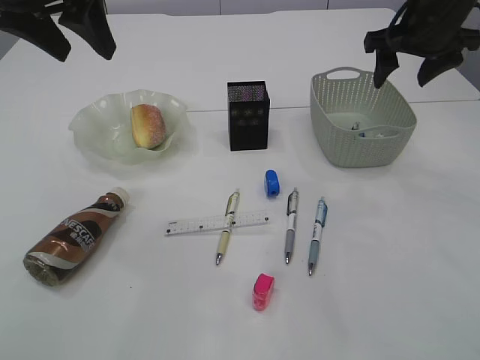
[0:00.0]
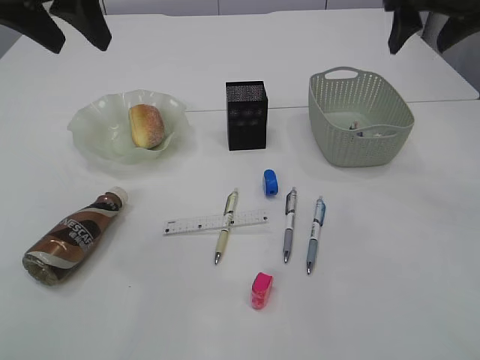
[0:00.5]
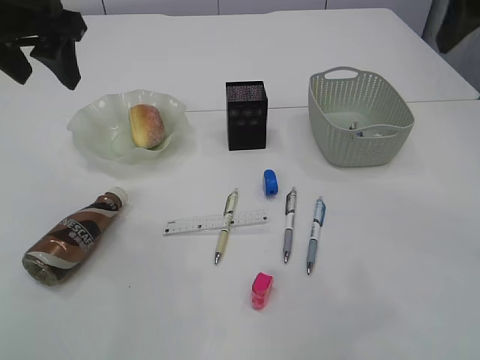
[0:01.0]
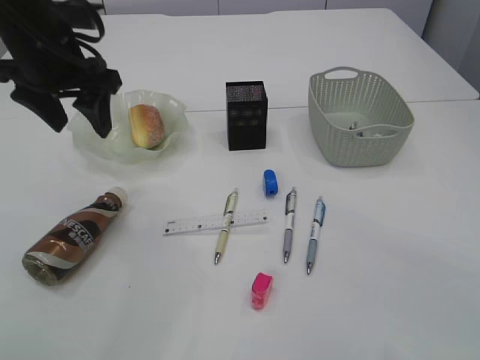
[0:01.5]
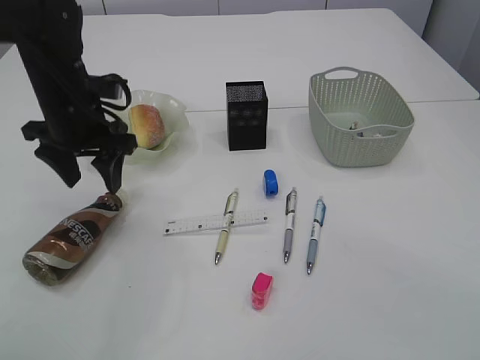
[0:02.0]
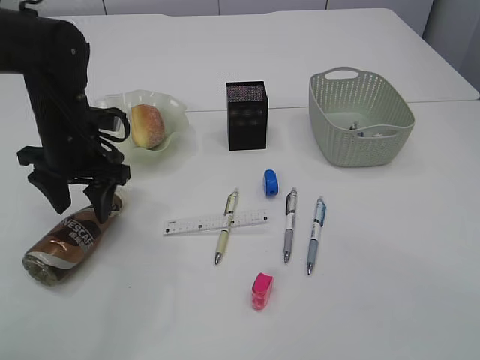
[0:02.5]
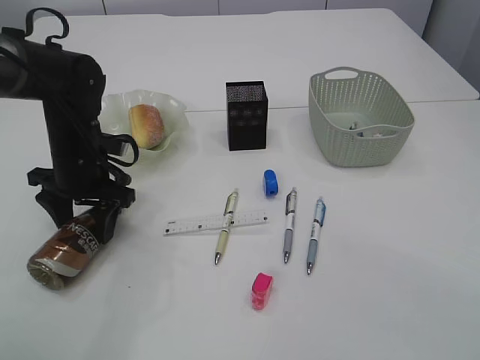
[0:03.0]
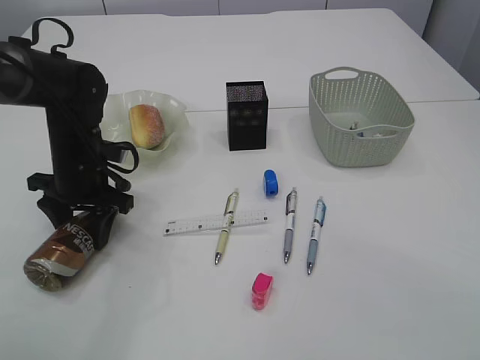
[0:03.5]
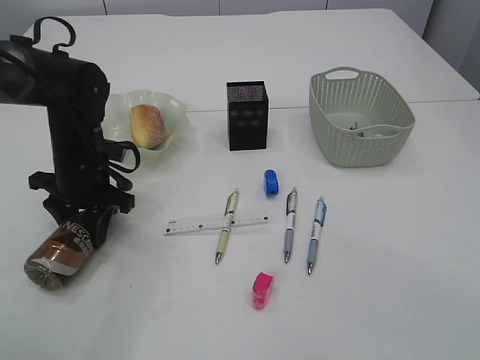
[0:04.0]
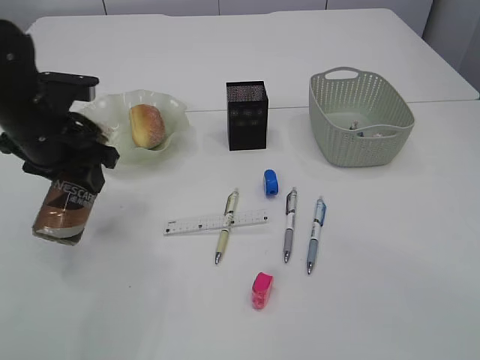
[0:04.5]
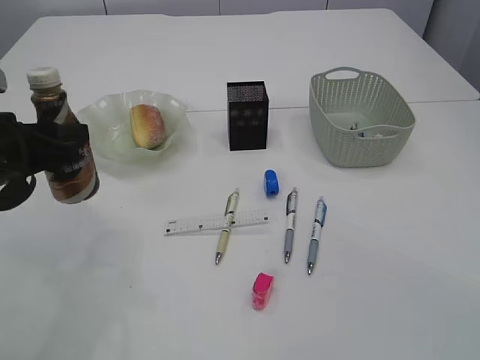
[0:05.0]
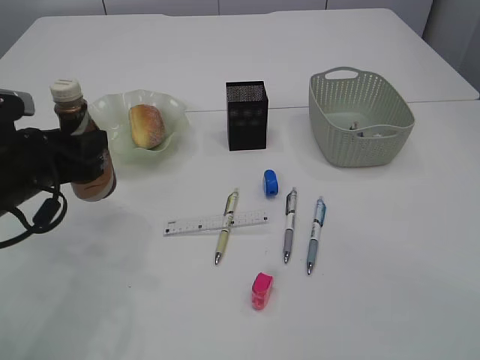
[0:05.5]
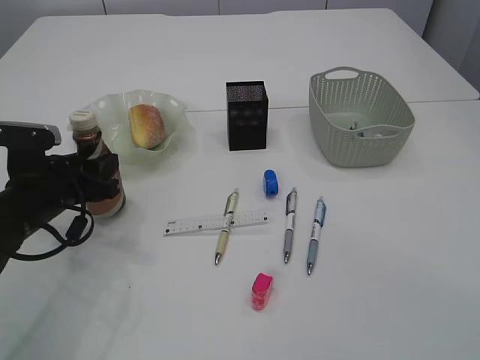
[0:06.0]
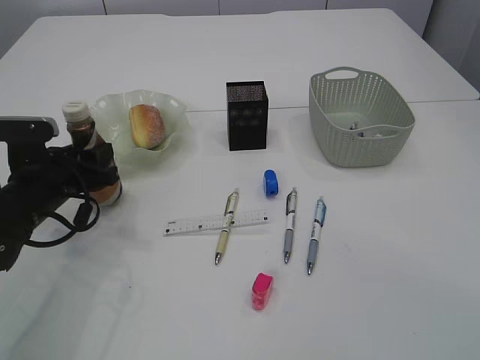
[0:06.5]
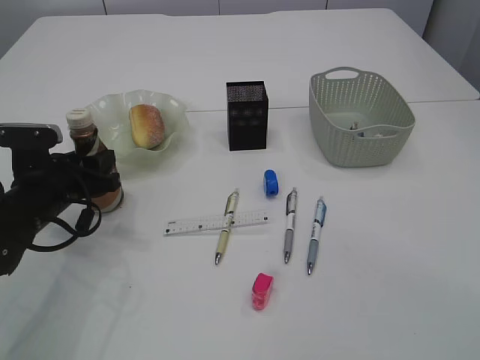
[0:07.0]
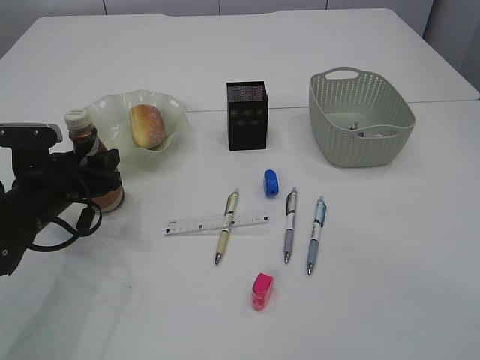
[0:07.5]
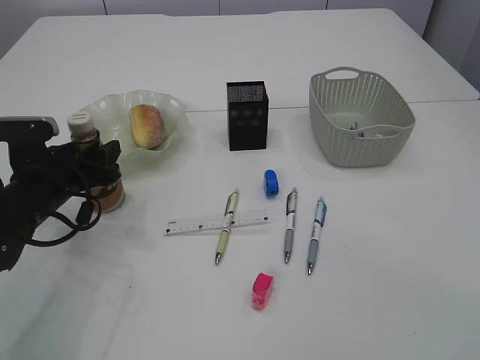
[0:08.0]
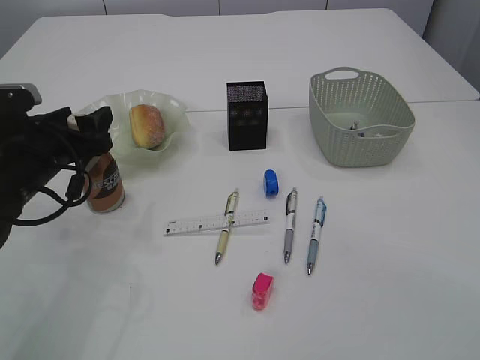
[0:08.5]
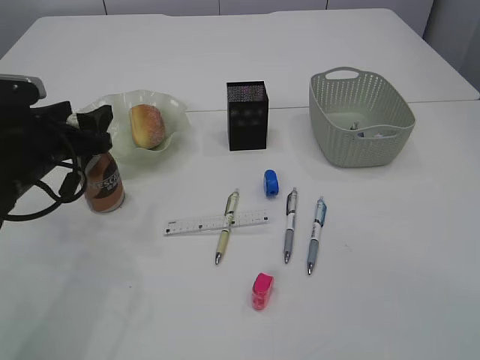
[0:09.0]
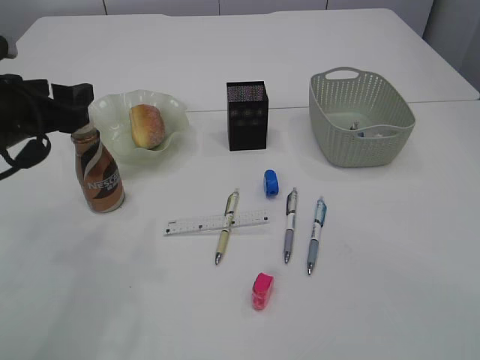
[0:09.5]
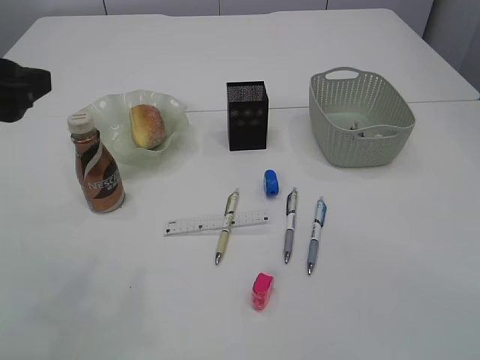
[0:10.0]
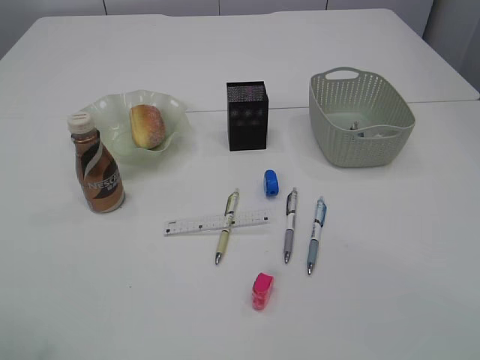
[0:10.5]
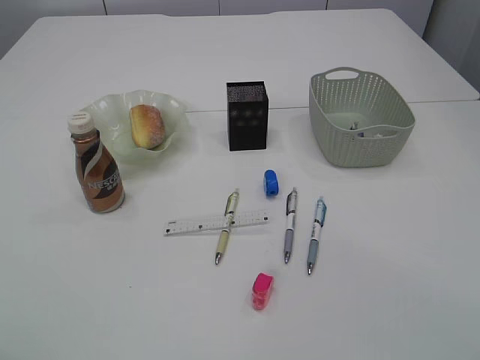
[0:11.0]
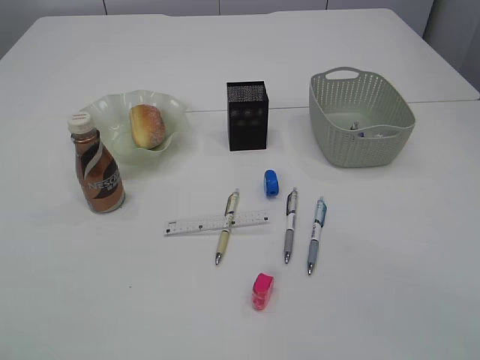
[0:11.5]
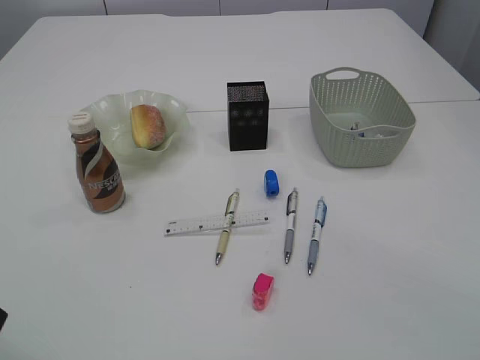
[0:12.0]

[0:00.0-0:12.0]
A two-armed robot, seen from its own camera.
Step, 0:00.0 to 0:04.0: Pick up the bottle with the left arm.
Step, 0:04.5 to 0:09.5: Place the bottle.
0:00.0 to 0:02.0: The right gripper moves backward and upward, some 30 cm. The left gripper heads downward, covering roughly 15 cm.
0:02.0 to 0:04.0: The left gripper moves downward, some 10 cm, and closes.
0:04.0 to 0:06.0: The left gripper goes some 5 cm backward.
0:06.0 to 0:08.0: The left gripper opens its fingers.
0:08.0 to 0:10.0: The left gripper heads upward and backward, covering approximately 20 cm.
0:10.0 to 0:12.0: The left gripper travels backward by some 15 cm.

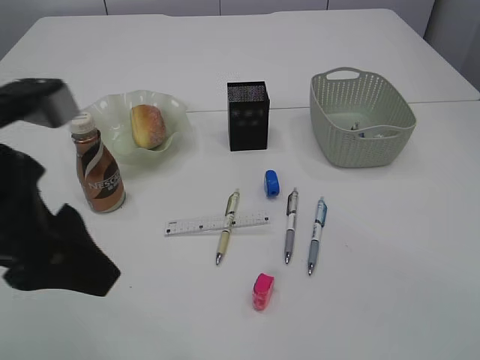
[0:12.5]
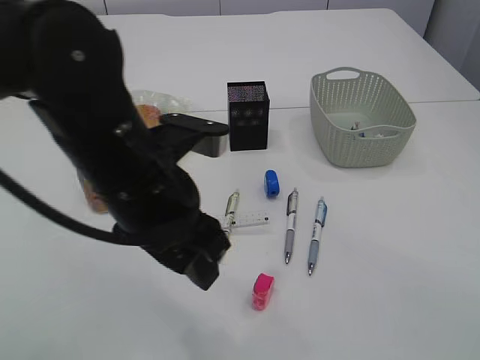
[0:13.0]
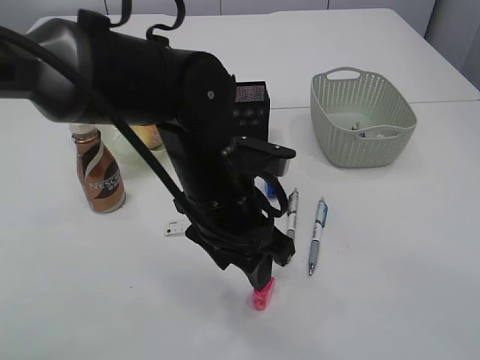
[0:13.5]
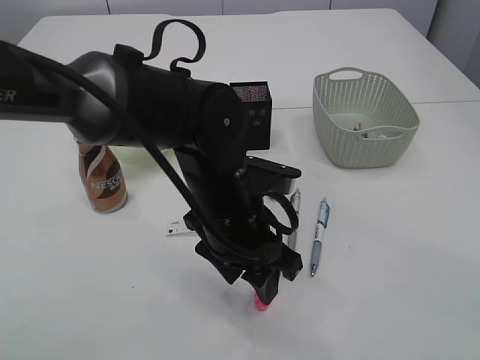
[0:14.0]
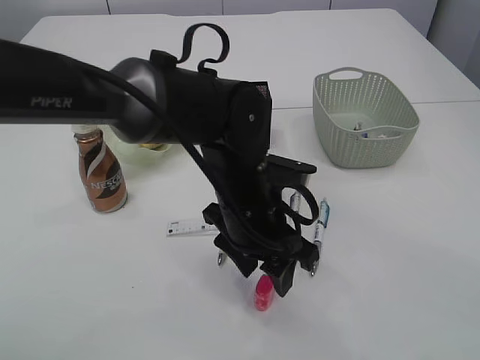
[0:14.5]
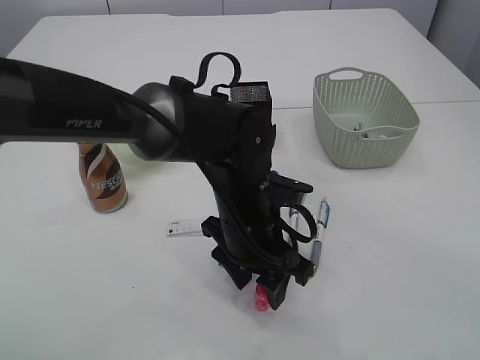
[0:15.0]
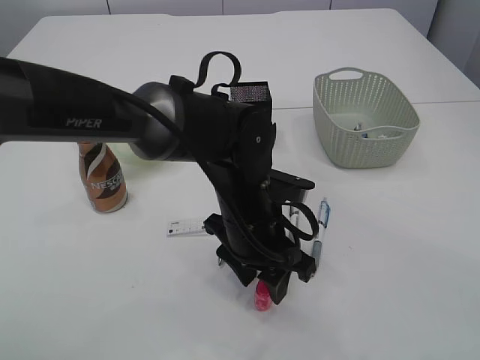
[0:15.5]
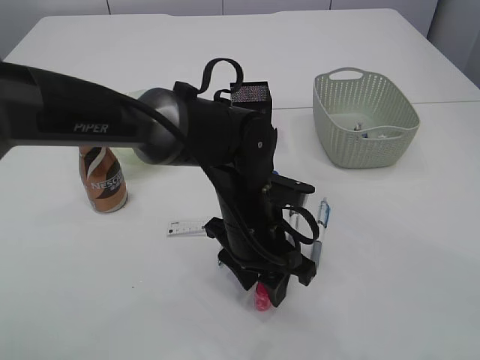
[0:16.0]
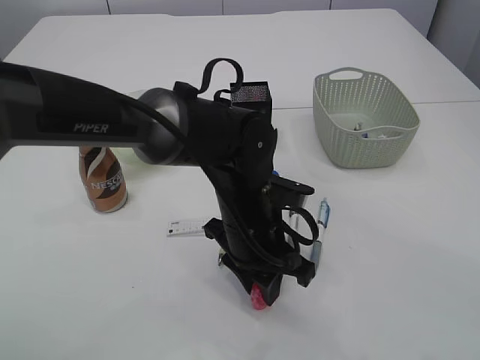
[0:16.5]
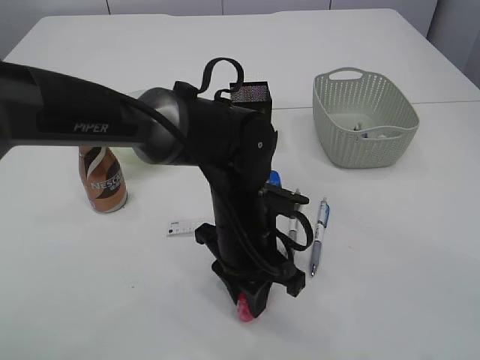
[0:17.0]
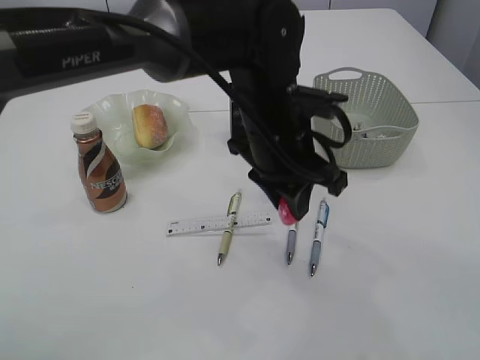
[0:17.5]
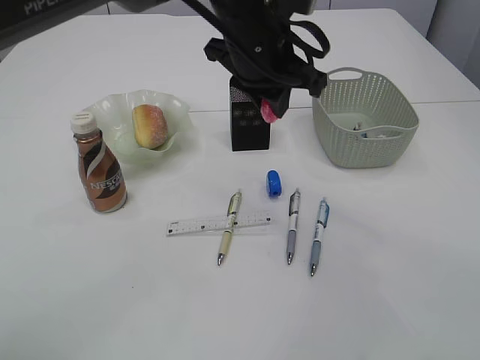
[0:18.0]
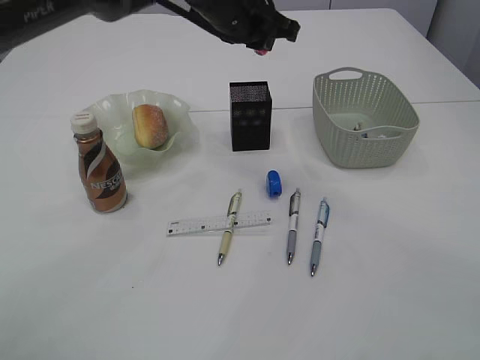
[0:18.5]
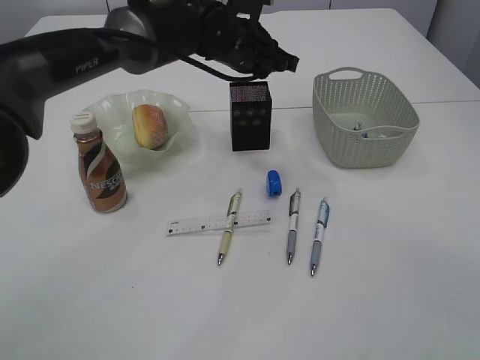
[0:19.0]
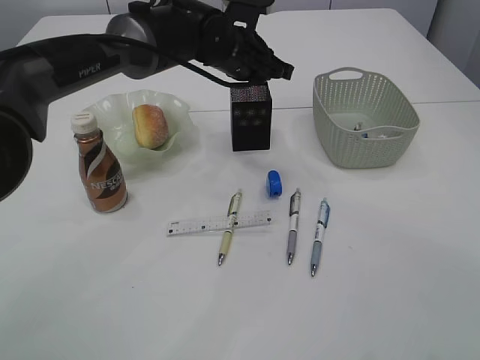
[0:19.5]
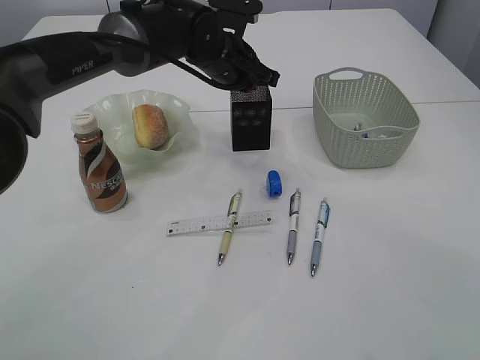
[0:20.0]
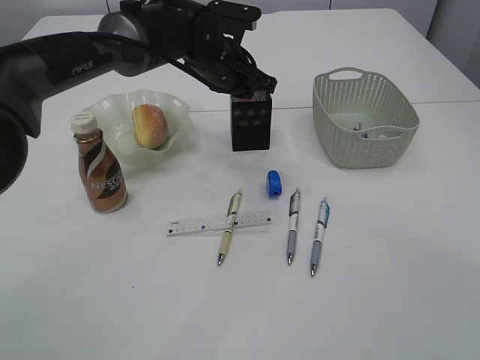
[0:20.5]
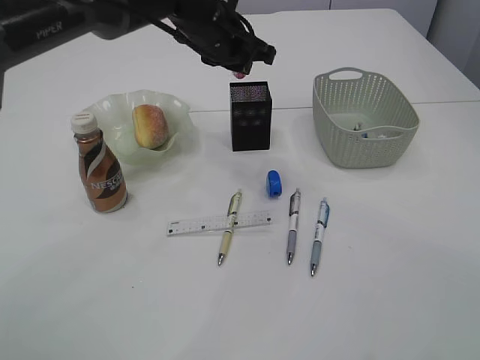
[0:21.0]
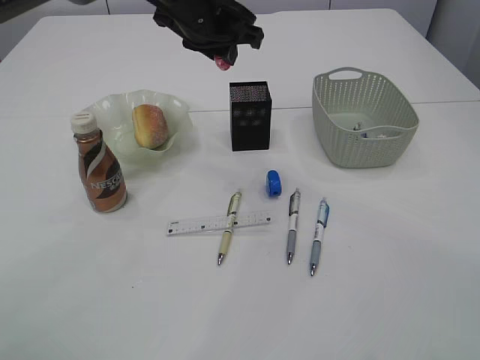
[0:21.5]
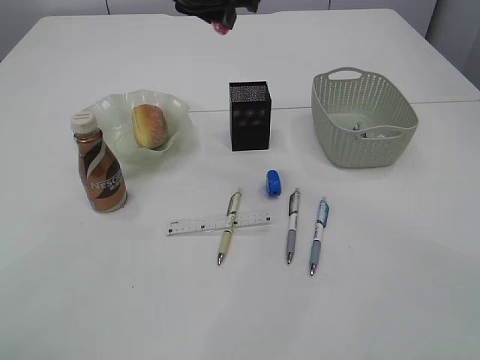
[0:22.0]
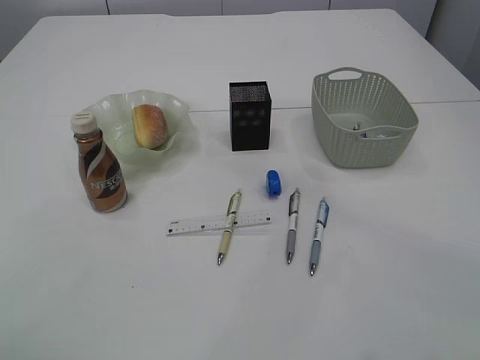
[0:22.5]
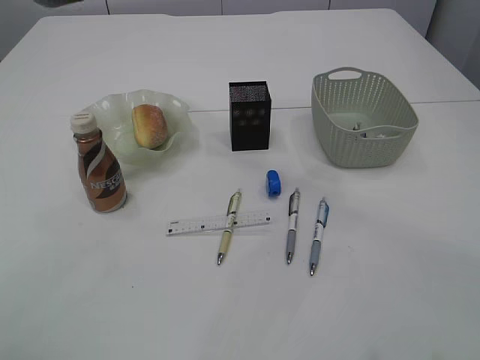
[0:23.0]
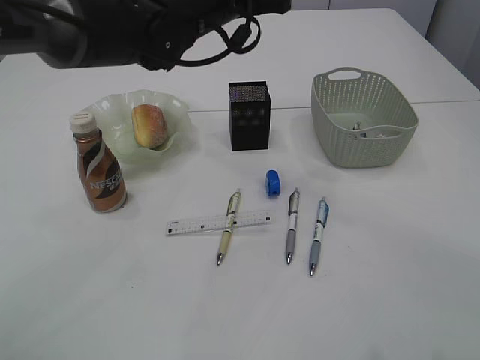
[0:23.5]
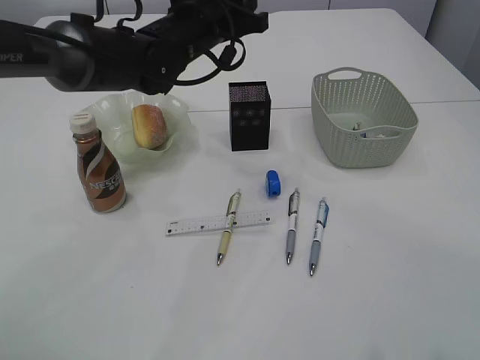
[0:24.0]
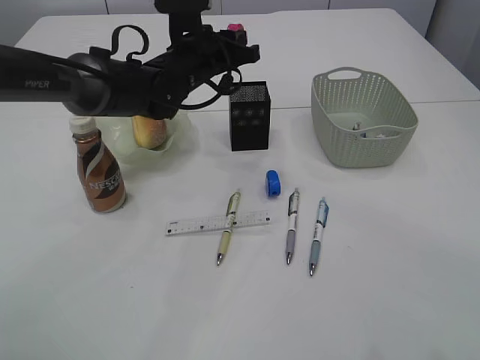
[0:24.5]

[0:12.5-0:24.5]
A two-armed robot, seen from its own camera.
Step, 0:12.5 to 0:17.5: Pick up the red pencil sharpener.
0:12.5 to 0:14.5: The left gripper moves to the right, downward and forward, approximately 25 cm.
0:14.5 to 0:16.5: The left gripper closes up.
0:16.5 to 0:18.5: The left gripper shifts some 25 cm upward and forward.
0:18.5 to 0:20.5: The left gripper goes some 10 cm downward.
0:20.5 to 0:22.5: The left gripper travels upward by some 15 cm.
0:22.5 to 0:24.5: The left gripper heads downward, covering roughly 20 cm.

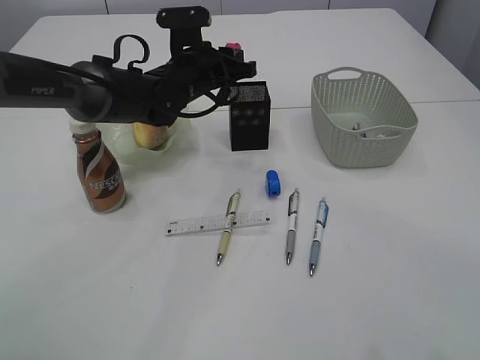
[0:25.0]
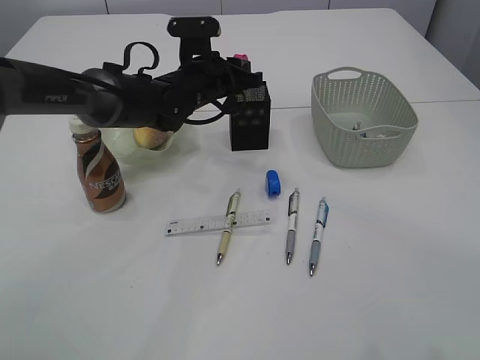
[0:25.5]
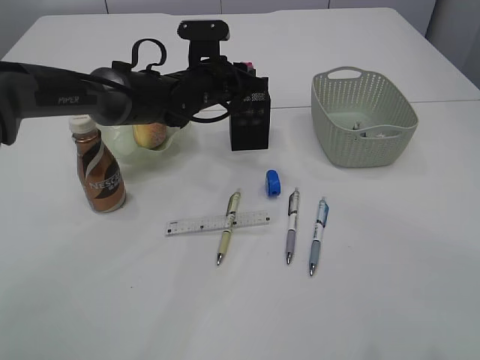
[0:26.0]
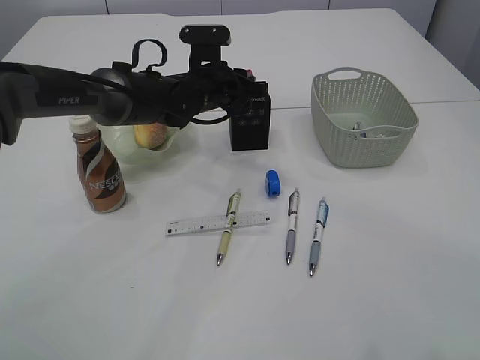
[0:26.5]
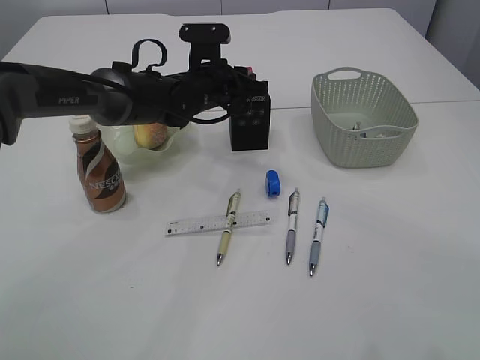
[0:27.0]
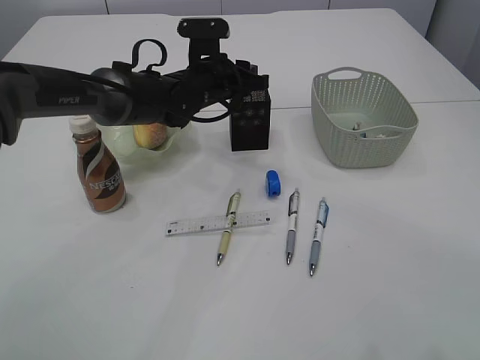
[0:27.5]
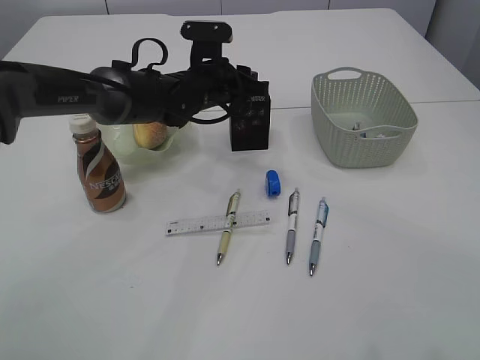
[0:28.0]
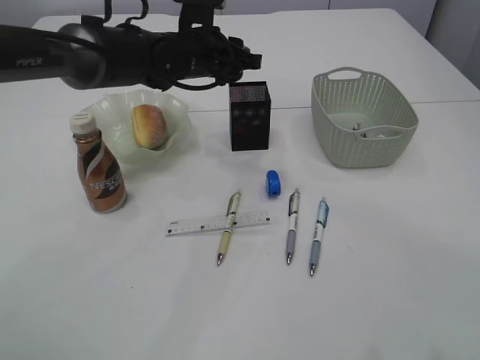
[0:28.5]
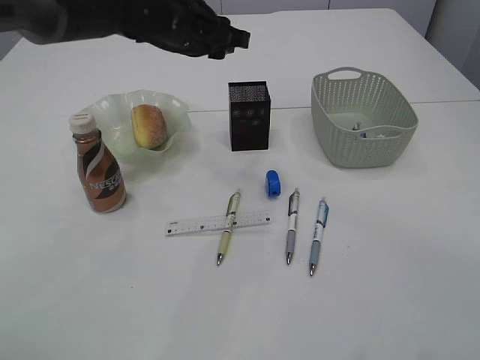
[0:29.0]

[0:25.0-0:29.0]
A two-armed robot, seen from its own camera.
Step, 0:25.0 to 0:28.5: Place the red pencil sharpener into the pen holder.
0:25.0 to 0:27.0: The grippers stay close to where they were, moving slightly.
0:27.0 to 0:29.0: The left gripper heads upward, covering approximately 10 cm.
